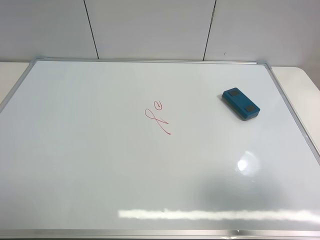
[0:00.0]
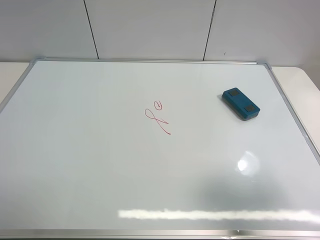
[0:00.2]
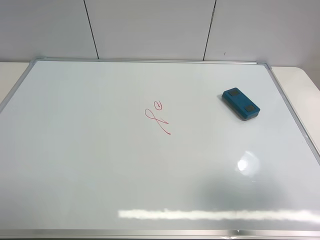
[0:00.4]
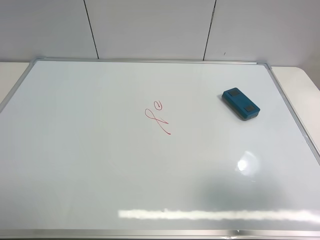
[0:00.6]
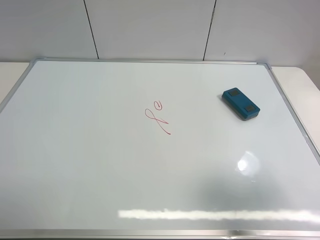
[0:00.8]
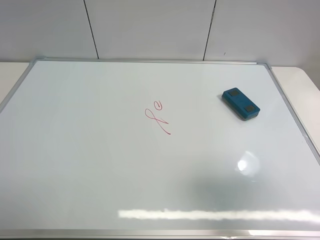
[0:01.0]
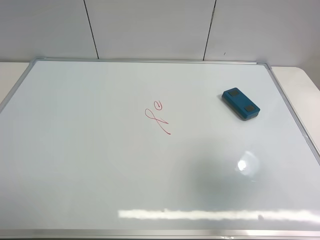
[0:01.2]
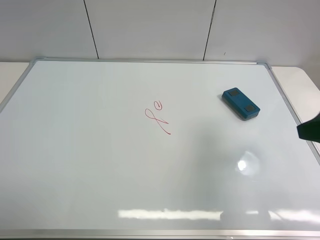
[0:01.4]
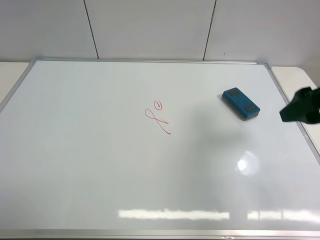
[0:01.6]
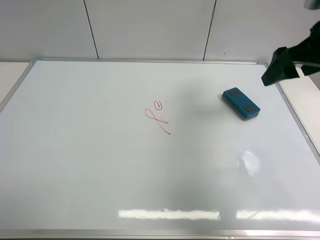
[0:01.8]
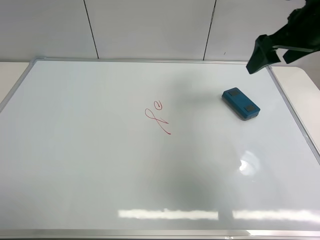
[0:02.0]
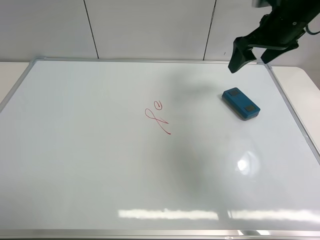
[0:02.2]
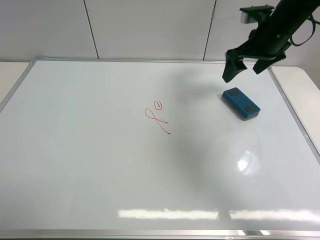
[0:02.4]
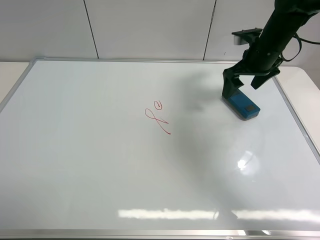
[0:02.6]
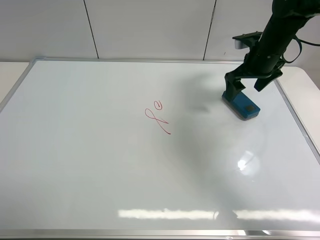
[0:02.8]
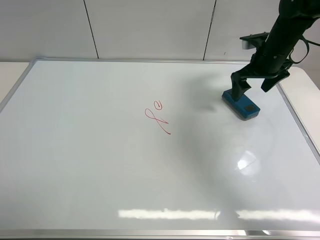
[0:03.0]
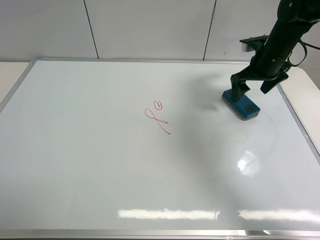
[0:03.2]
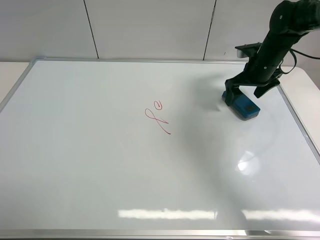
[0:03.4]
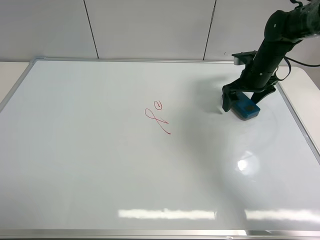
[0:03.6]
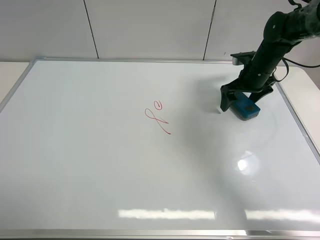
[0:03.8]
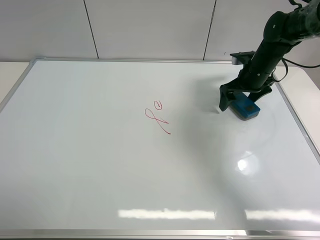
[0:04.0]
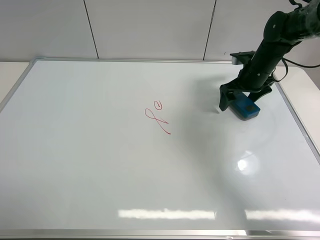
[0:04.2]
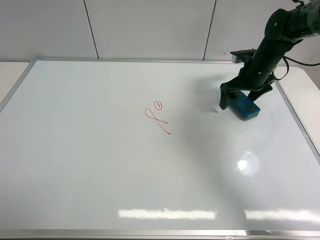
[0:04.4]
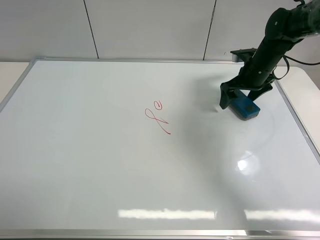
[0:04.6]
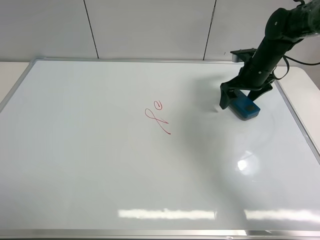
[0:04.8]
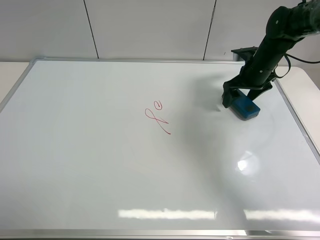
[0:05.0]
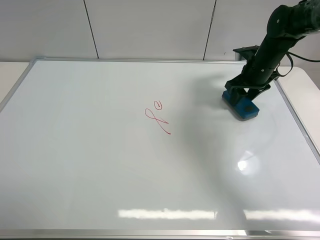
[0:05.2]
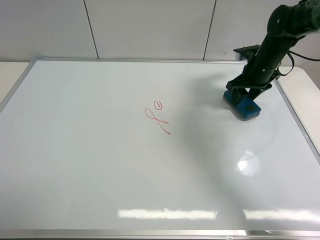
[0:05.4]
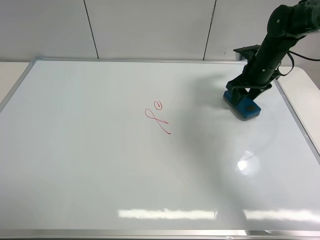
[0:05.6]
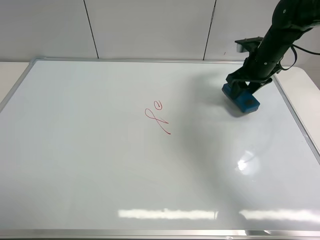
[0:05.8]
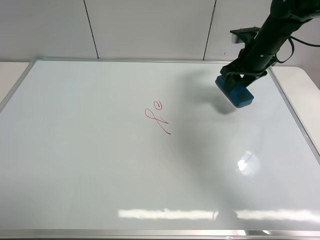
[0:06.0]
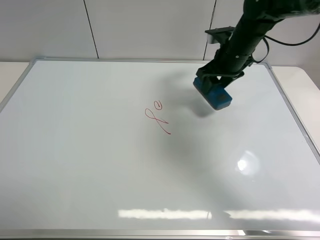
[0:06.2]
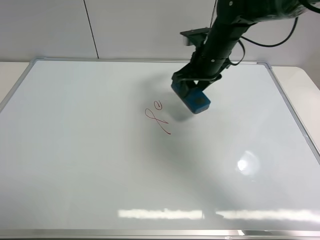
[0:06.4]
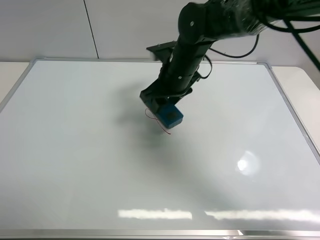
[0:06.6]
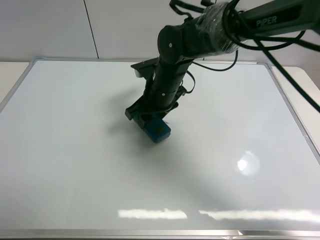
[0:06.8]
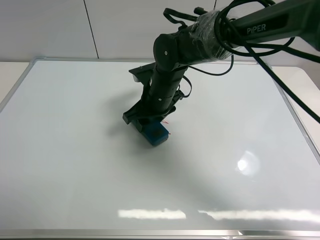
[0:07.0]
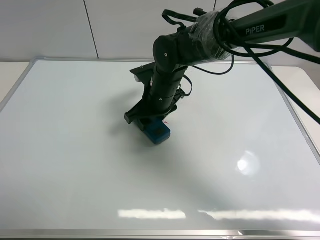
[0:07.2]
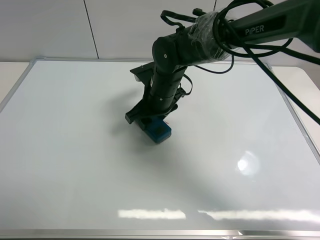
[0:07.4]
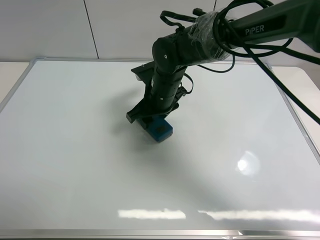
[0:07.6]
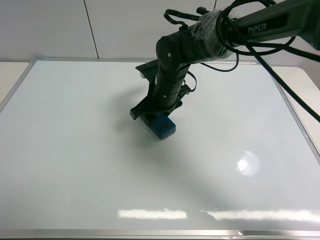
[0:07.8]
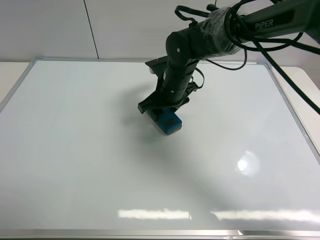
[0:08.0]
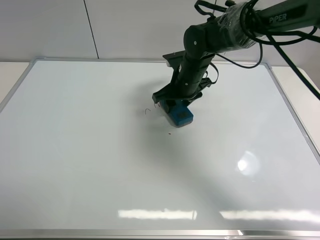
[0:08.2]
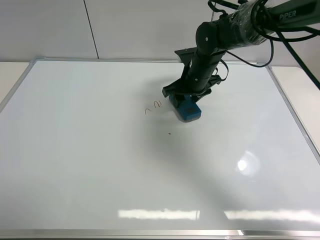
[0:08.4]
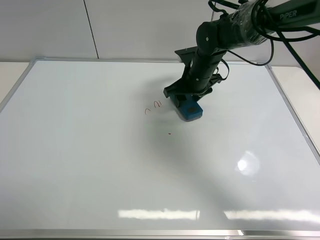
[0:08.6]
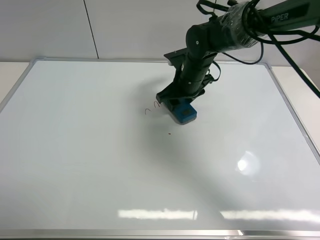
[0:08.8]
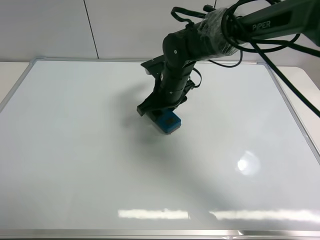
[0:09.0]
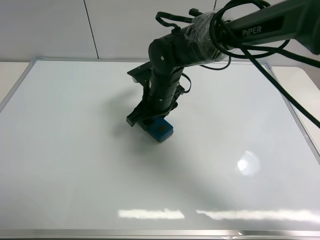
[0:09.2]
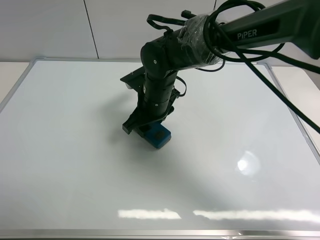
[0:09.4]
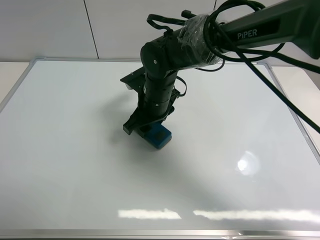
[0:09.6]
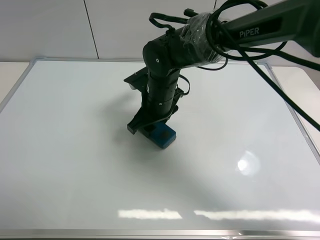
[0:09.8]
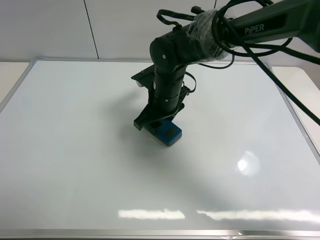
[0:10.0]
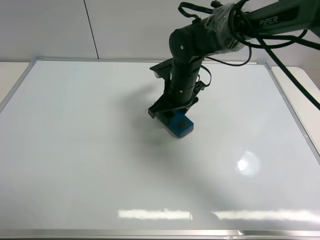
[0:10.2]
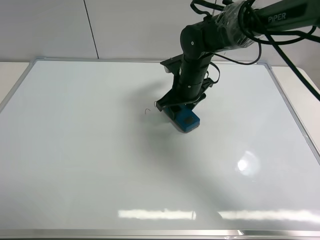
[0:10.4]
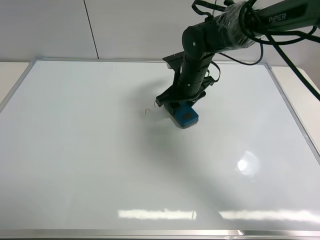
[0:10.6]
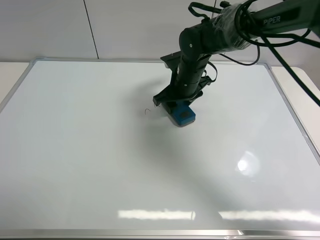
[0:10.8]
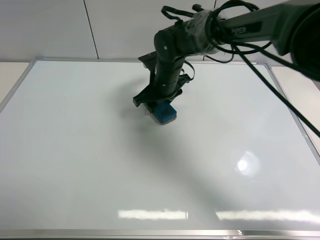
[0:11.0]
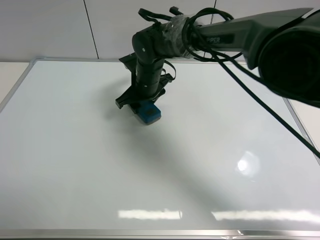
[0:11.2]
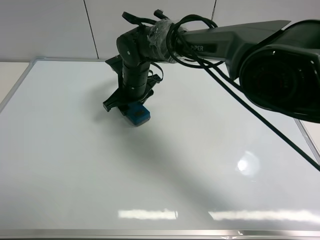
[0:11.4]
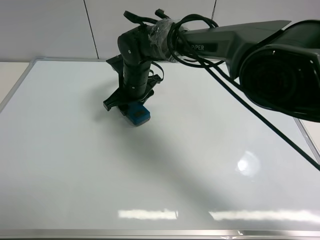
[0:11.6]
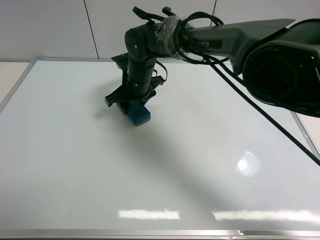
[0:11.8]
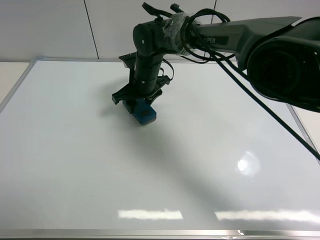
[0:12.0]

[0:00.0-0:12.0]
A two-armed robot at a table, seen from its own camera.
Task of the whole recording: use the right gripper to pick up the board eraser, wipe the notes on the whiteboard clean, and then put them back in place.
Step, 0:00.0 to 0:05.6: Pick up the board eraser with right gripper.
0:00.0 to 0:01.6: The right gripper heads forward, covering approximately 20 cm.
0:01.6 to 0:03.0: The right gripper moves forward and downward, approximately 20 cm.
0:03.0 to 0:04.4: The right gripper shifts by some 5 cm.
0:04.4 to 0:06.0: The right gripper travels upward by some 5 cm, and closes.
0:06.0 to 0:07.6: The right gripper moves to the left and backward, about 25 cm.
0:07.6 to 0:09.0: The right gripper moves some 10 cm to the right and comes back.
0:09.0 to 0:10.4: The right gripper heads to the right, covering approximately 5 cm.
0:10.4 to 0:12.0: The right gripper goes some 10 cm to the left.

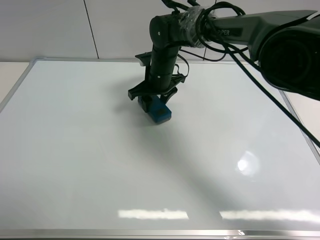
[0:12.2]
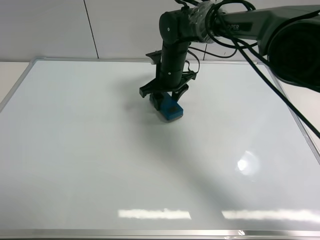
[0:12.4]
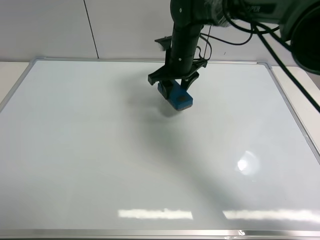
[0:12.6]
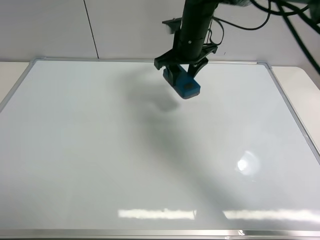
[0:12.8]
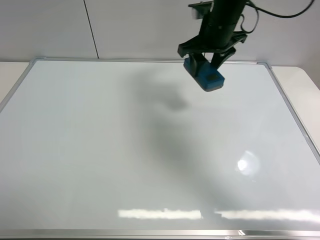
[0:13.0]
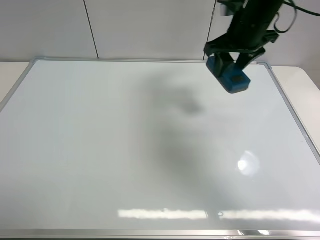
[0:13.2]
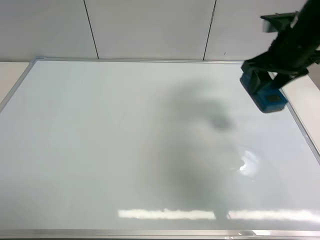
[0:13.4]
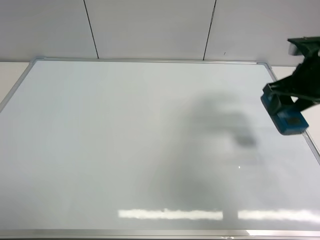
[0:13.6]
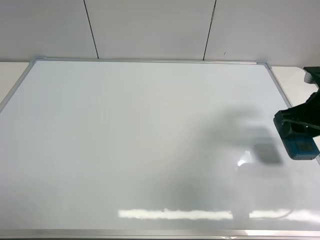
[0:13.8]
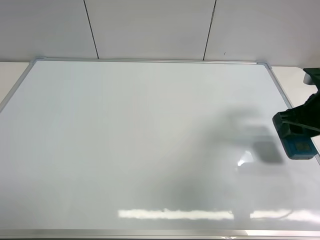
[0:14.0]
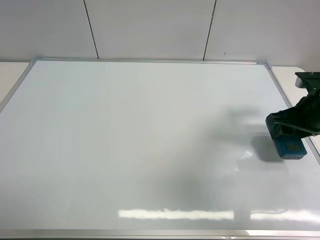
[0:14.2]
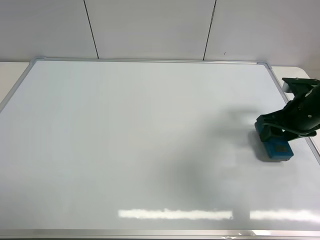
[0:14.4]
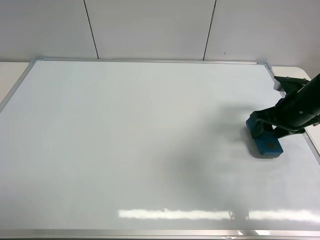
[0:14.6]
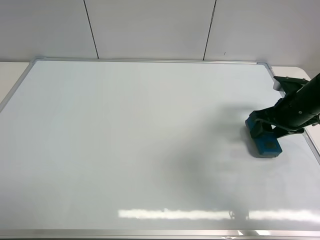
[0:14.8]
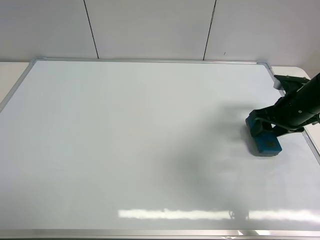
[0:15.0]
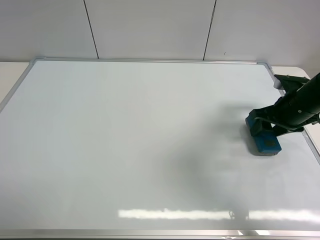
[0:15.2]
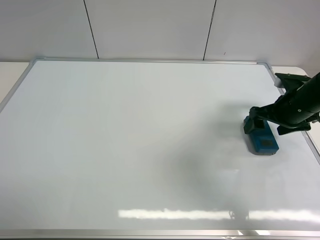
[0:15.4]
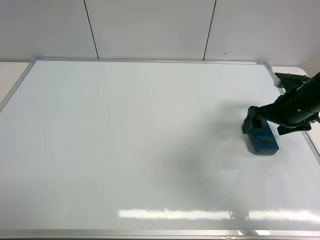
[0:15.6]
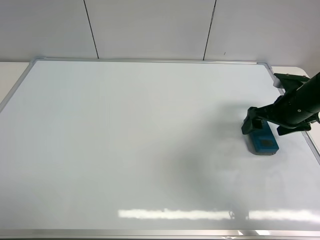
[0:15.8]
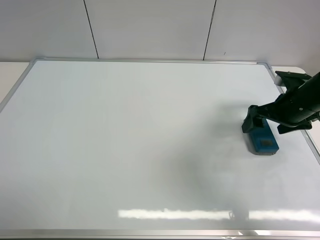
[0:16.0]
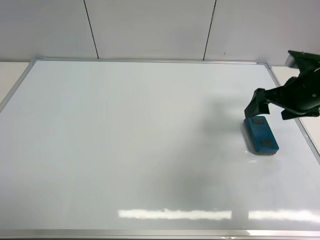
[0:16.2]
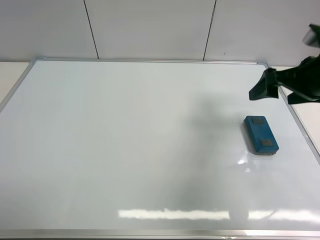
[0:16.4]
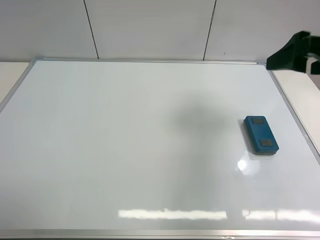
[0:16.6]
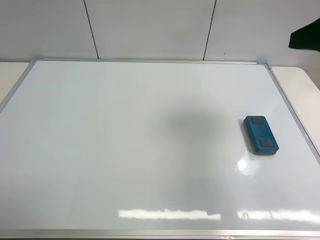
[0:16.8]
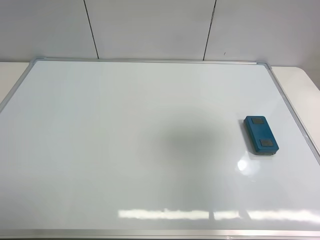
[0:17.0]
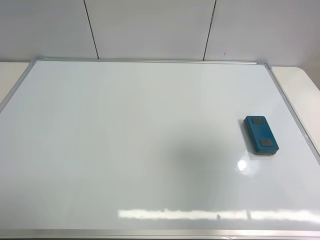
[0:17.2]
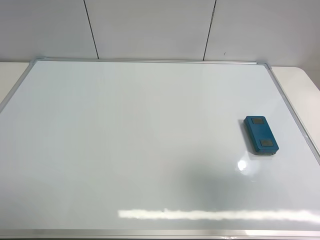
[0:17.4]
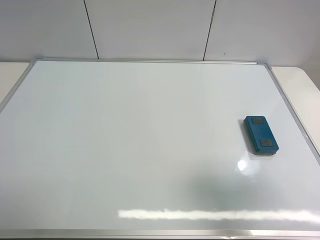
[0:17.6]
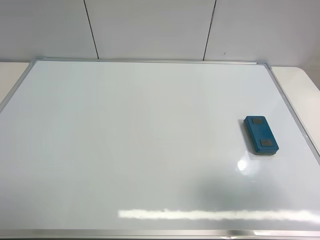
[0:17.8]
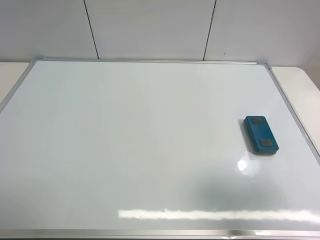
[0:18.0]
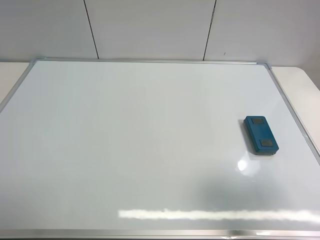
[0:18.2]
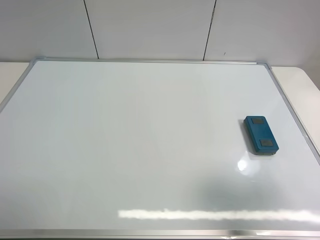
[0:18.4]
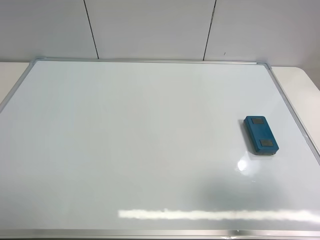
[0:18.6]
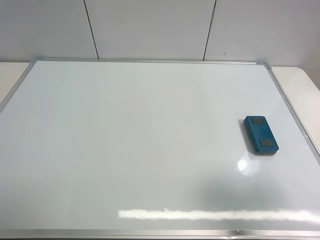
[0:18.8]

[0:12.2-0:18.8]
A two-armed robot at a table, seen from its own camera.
Task of the whole recording: use the right gripper to pick up the board eraser, wipe the notes on the whiteboard clean, and then put them back in place.
Step, 0:12.6 to 0:15.4: Place the board eraser on the right side of board with right gripper.
0:12.2 to 0:13.8: The right gripper travels to the right and backward by roughly 35 cm.
0:13.8 to 0:15.4: The right gripper moves about 5 cm, and opens its fingers.
0:15.4 to 0:17.2: The right gripper shifts approximately 30 cm backward and upward.
0:17.2 to 0:18.8: The right gripper heads downward and backward, covering some 10 cm.
